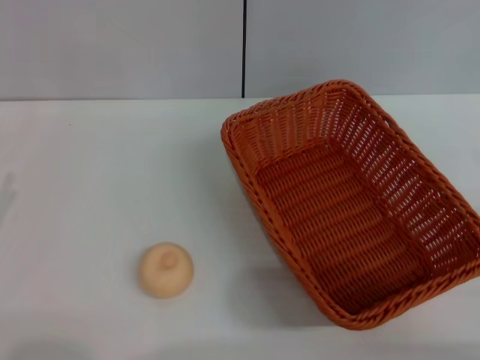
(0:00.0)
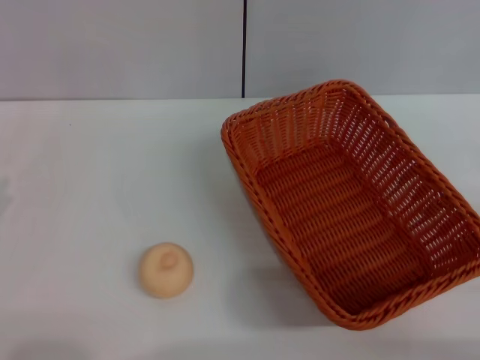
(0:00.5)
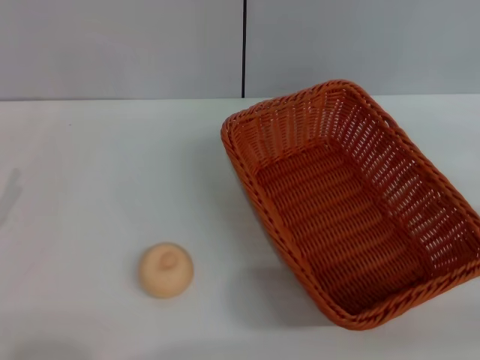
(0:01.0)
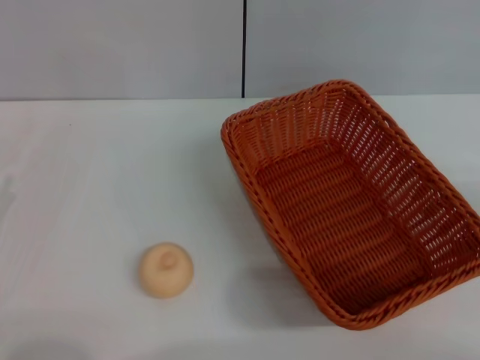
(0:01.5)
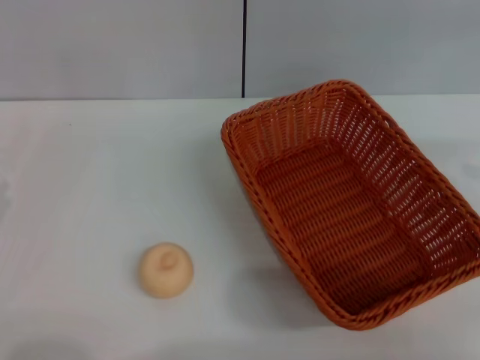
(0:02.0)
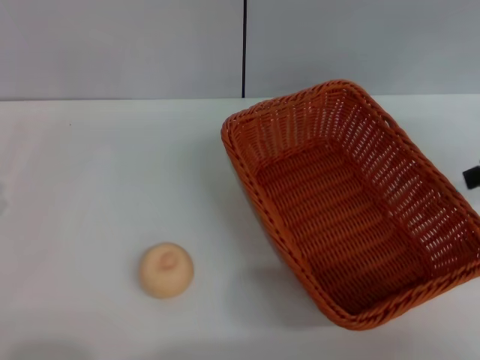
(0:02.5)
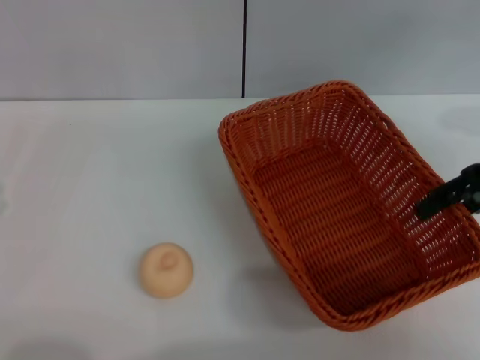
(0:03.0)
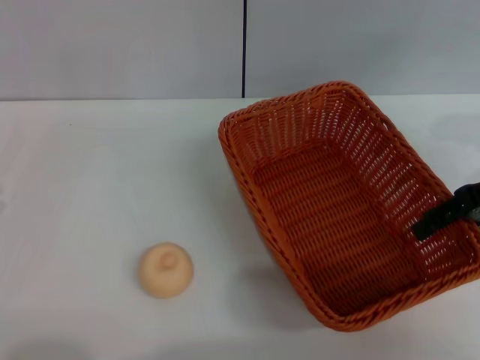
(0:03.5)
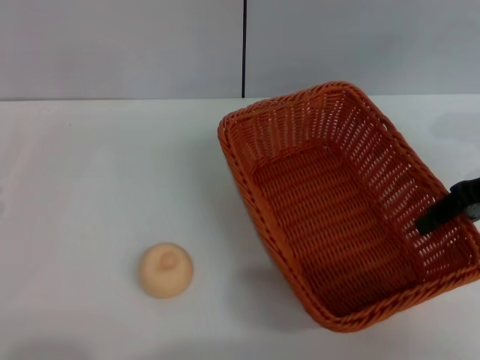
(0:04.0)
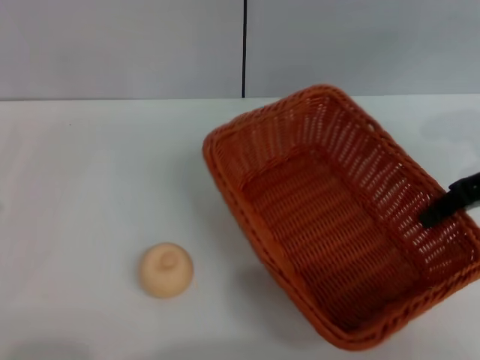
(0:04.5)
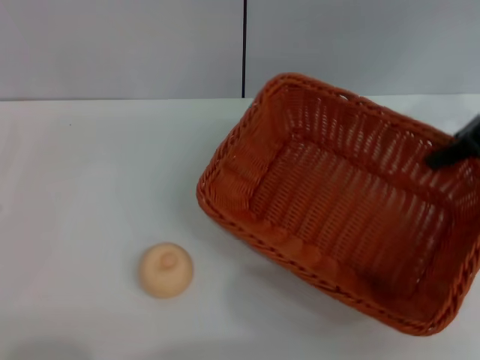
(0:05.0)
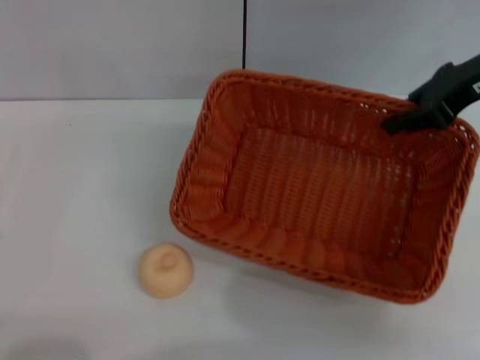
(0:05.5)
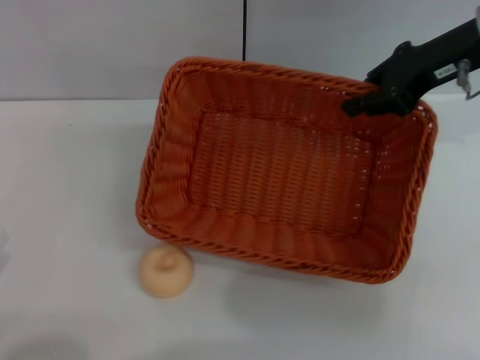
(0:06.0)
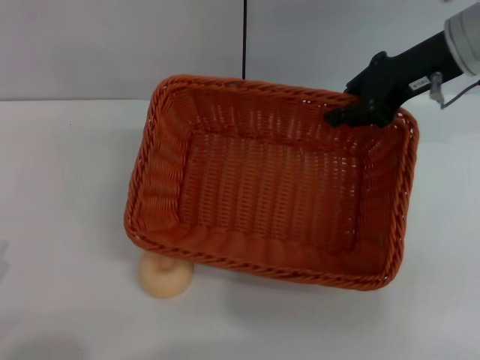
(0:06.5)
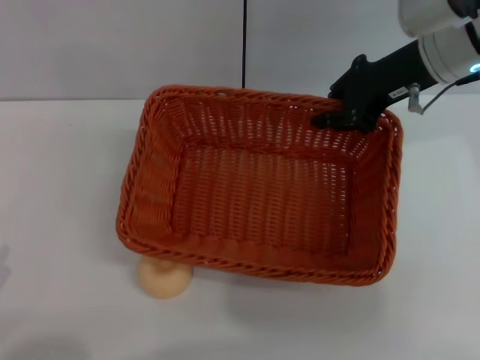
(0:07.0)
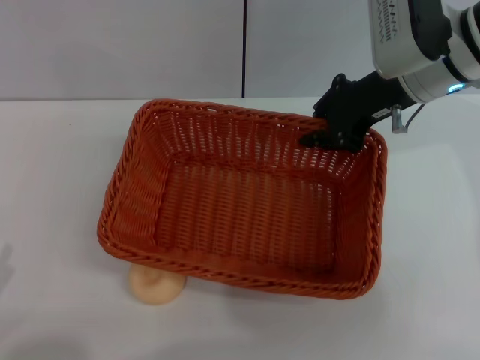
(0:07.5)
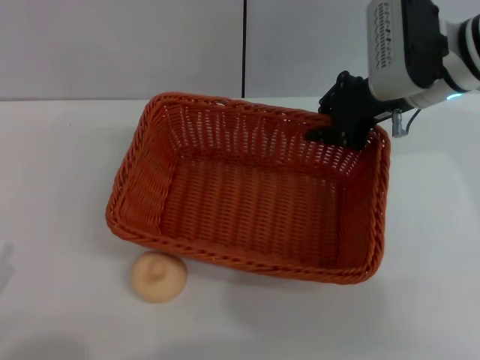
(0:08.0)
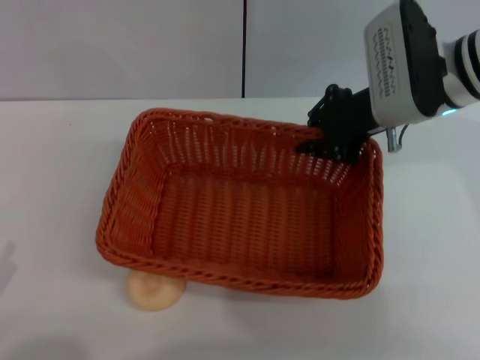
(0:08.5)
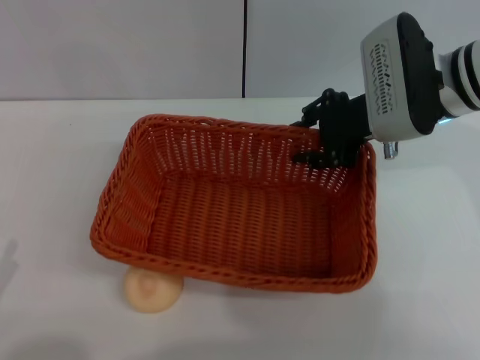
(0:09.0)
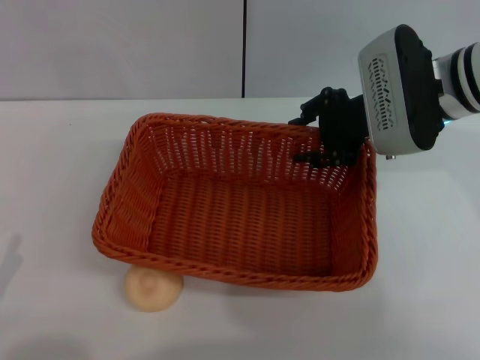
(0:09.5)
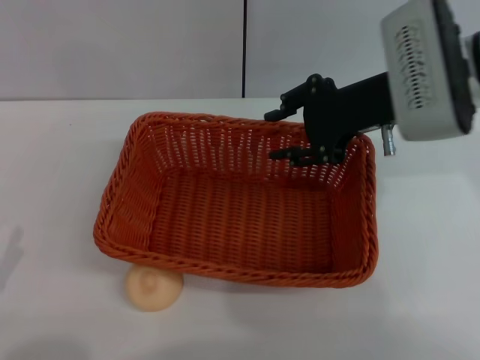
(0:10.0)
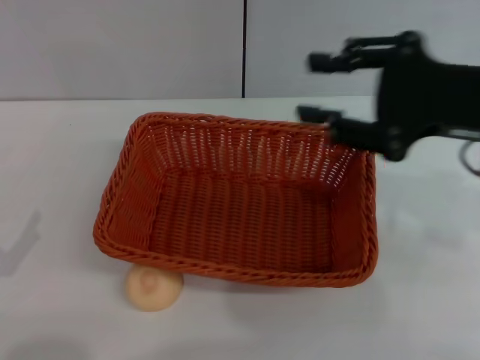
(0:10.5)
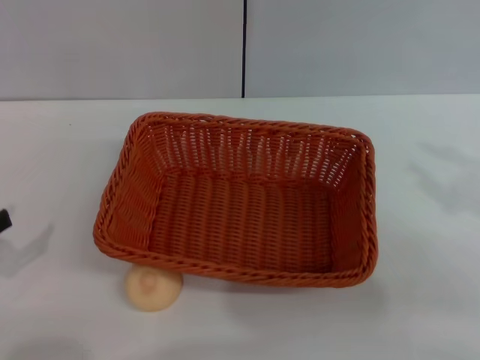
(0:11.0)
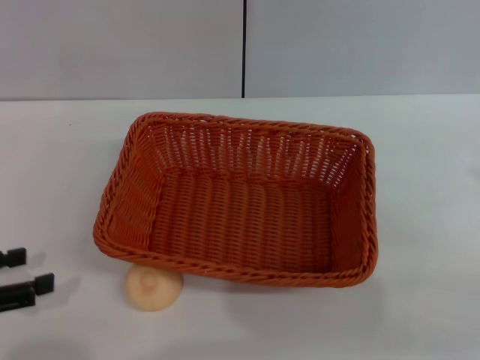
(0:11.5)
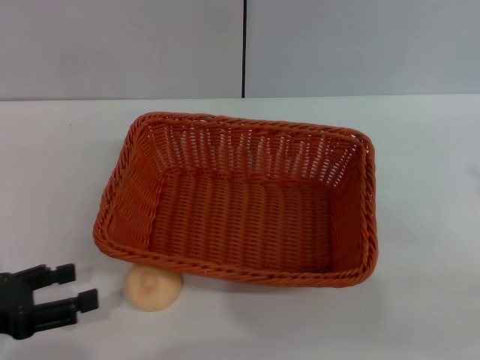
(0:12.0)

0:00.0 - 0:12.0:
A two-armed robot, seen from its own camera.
Step, 0:00.0 - 0:10.0: Move the basket to the center of view with the right gripper.
0:02.0 - 0:04.0: The right gripper is displaced to the left, downward and forward by some 15 cm.
0:04.0 - 0:06.0: The right gripper shifts approximately 10 cm to the left, forward and upward, and closes its fingers; the left gripper goes about 5 cm backward.
0:06.0 - 0:08.0: The right gripper travels to the left and downward by roughly 10 cm.
0:08.0 - 0:10.0: The right gripper opens up.
0:10.0 - 0:12.0: The left gripper travels forward by some 5 cm. Meanwhile the right gripper shifts roughly 30 cm to the right and backward.

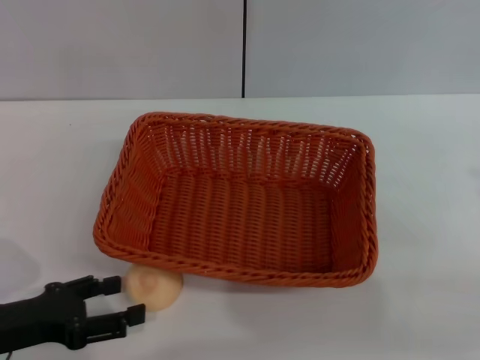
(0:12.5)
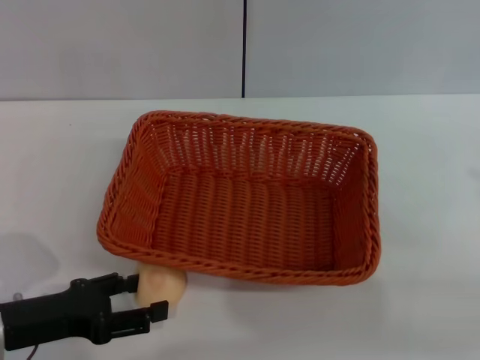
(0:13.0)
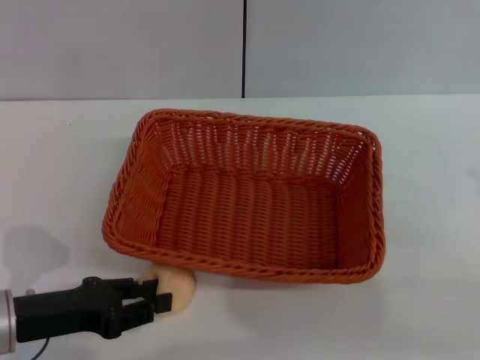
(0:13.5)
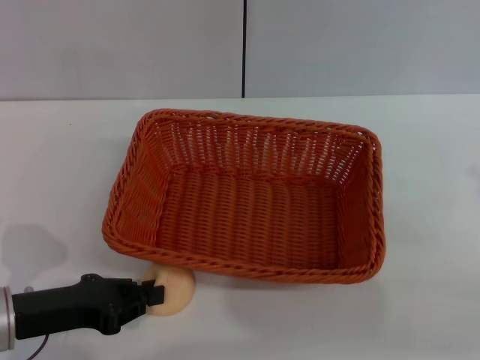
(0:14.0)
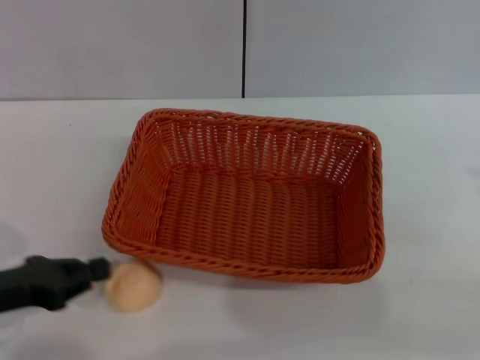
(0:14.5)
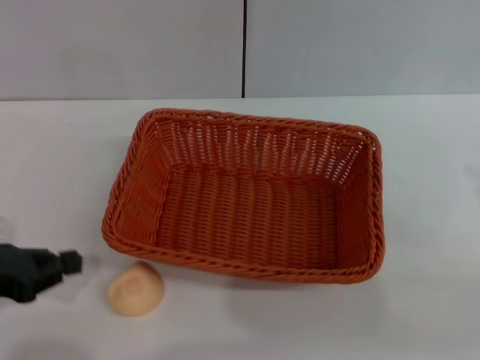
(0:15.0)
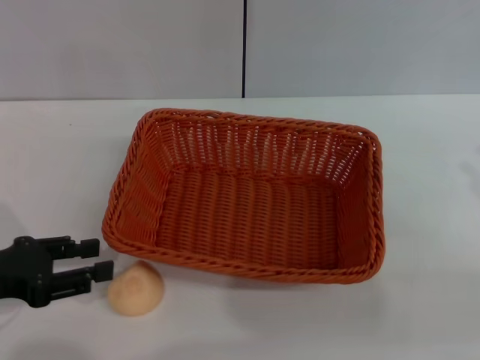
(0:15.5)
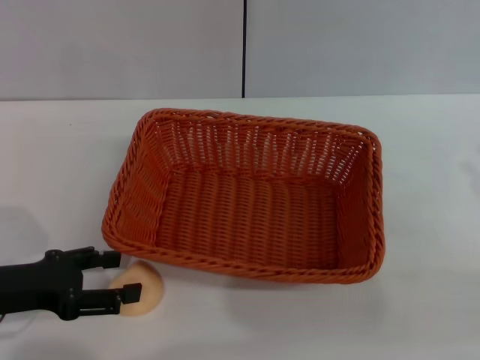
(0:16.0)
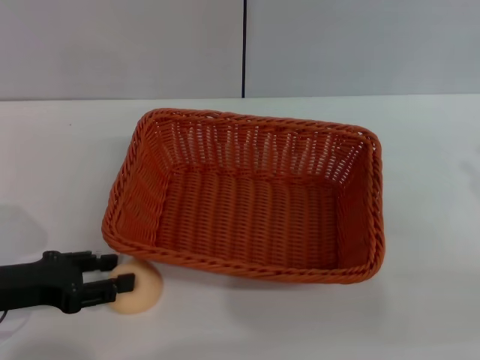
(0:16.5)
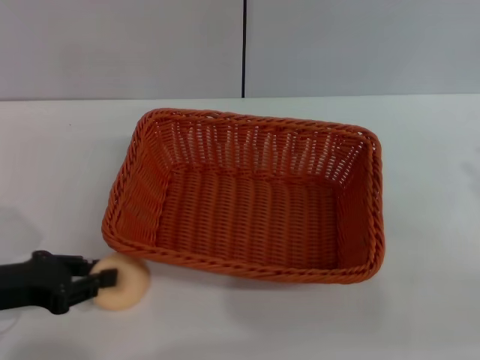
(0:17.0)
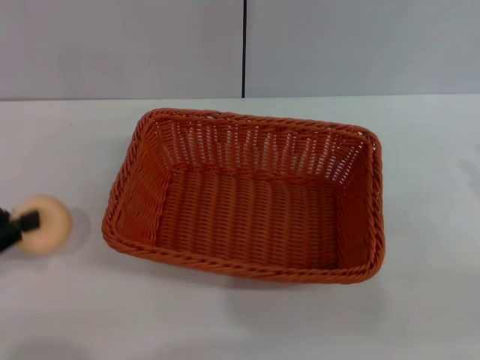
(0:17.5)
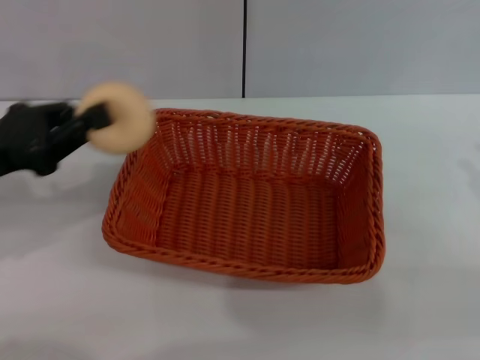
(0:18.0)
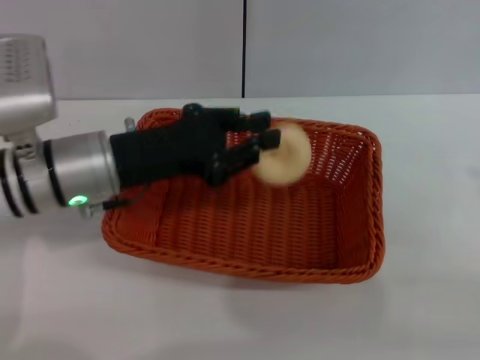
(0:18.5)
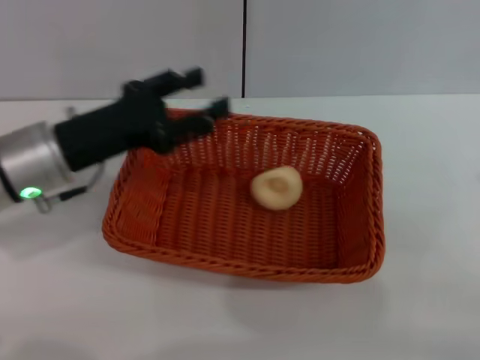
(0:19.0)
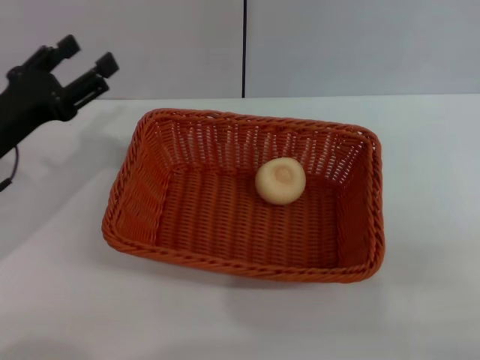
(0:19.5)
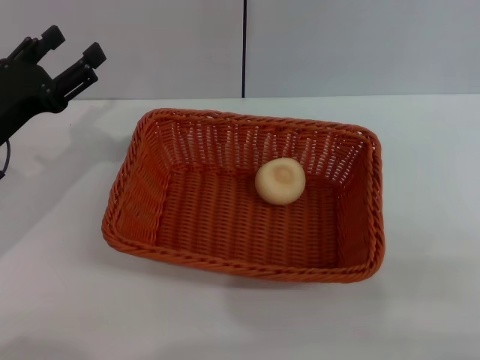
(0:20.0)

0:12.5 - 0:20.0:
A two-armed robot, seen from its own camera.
Step, 0:12.5 - 0:17.5: Pick up the egg yolk pastry with the left gripper.
Step, 0:18.0 - 0:18.5: Place the egg yolk pastry into the basket with the left gripper.
0:12.5 - 0:14.5: The left gripper closes its fingers.
0:14.5 - 0:16.5: The left gripper opens its fingers.
0:16.5 - 0:18.0: The left gripper heads upward, covering some 10 cm, and closes.
0:18.0 - 0:20.0: The left gripper reaches roughly 15 cm to the right, then returns, and opens its fingers. Meanwhile the right gripper travels backward and downward by about 10 cm.

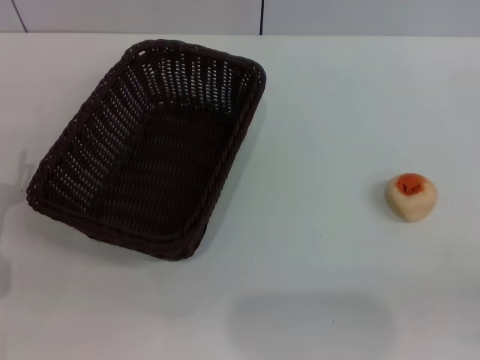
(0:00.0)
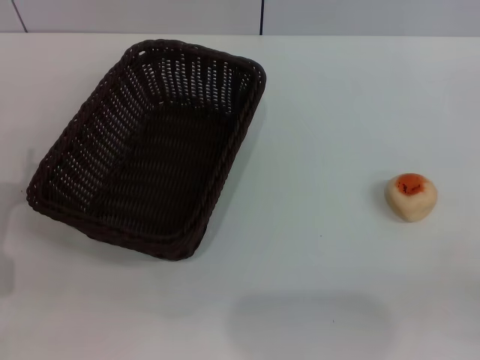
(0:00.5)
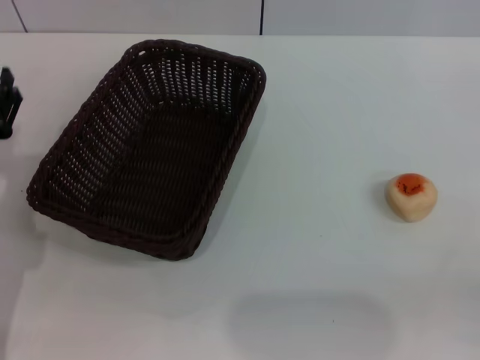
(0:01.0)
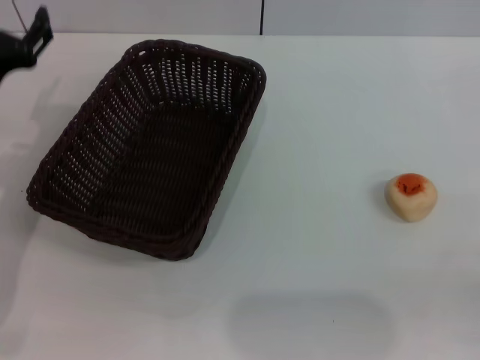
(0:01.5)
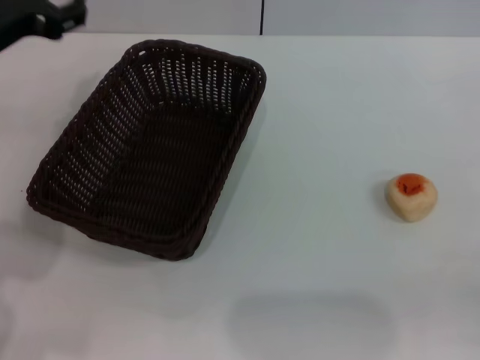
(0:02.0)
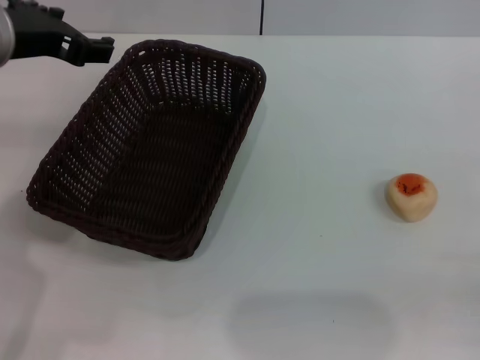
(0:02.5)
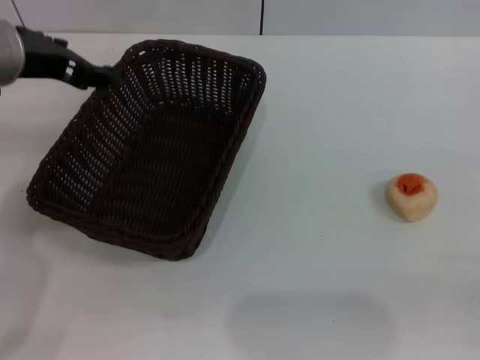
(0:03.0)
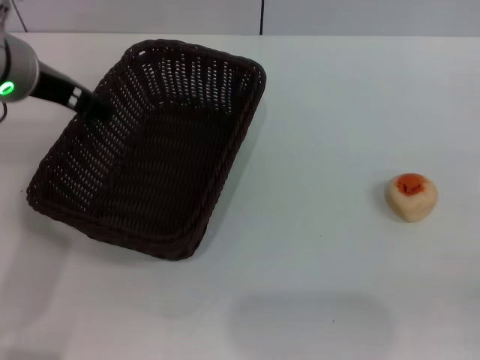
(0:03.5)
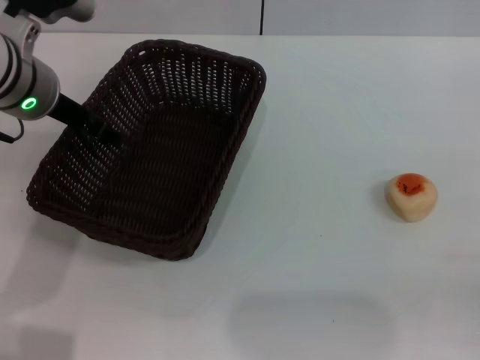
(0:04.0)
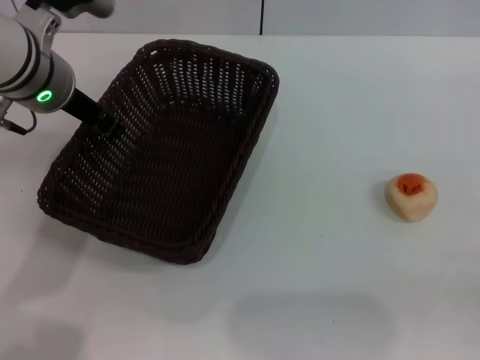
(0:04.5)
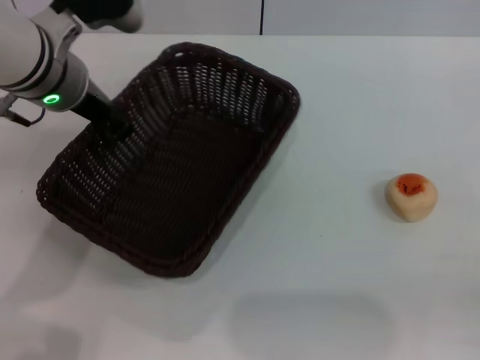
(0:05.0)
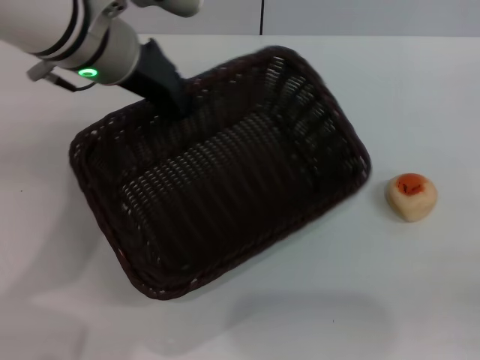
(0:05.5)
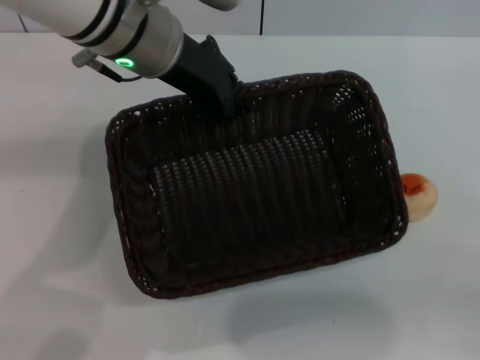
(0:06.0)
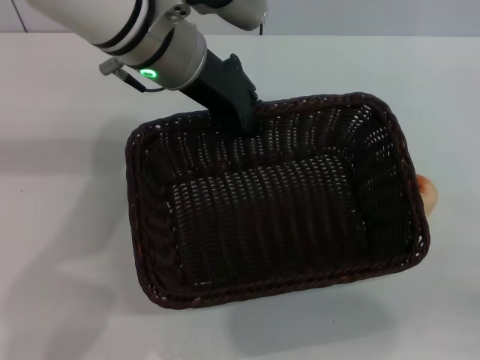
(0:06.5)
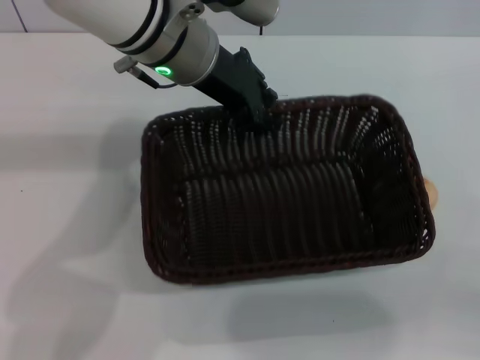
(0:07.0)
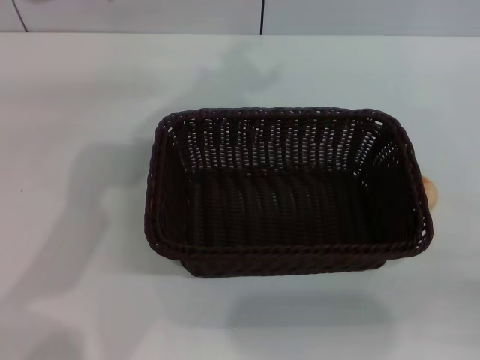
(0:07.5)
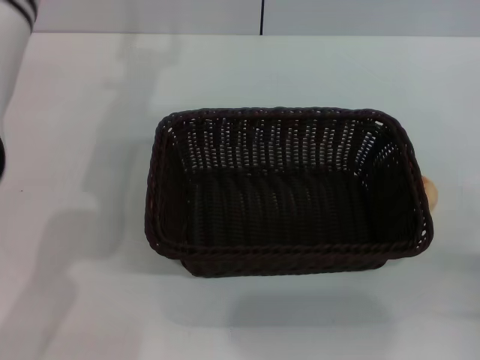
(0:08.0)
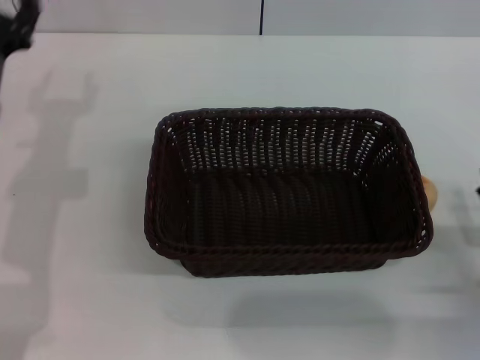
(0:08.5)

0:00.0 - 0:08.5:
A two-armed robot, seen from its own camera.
0:00.0 - 0:02.0: The left gripper is displaced upward and forward by some 20 cm.
0:02.0 - 0:04.0: The left gripper changes place by about 5 cm.
0:04.0 - 0:06.5: The left gripper heads to the right, covering about 10 cm, and closes up.
0:06.5 - 0:08.5: The right gripper travels forward by roughly 10 cm. The left gripper is displaced to the left and downward by some 20 cm, and opens.
